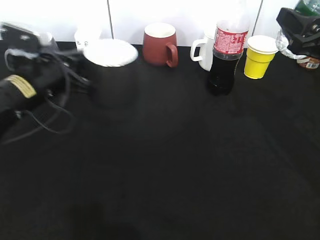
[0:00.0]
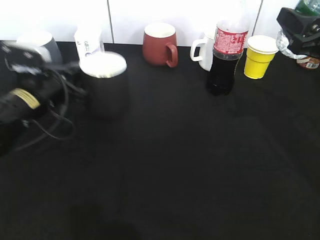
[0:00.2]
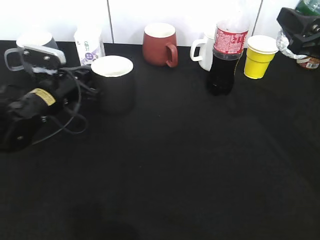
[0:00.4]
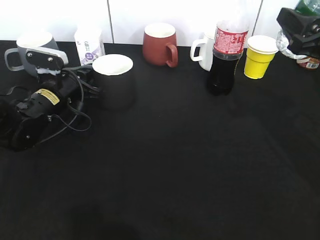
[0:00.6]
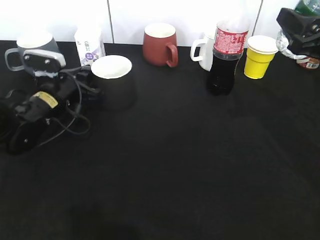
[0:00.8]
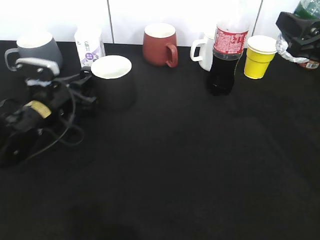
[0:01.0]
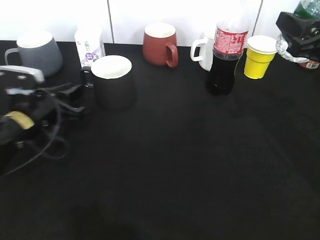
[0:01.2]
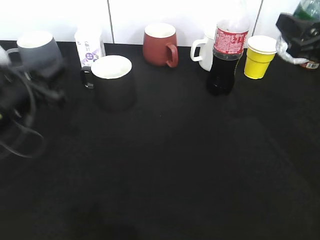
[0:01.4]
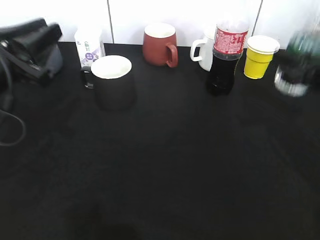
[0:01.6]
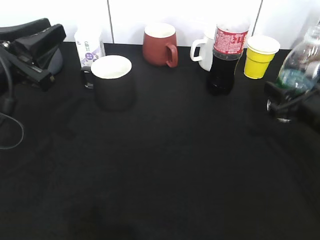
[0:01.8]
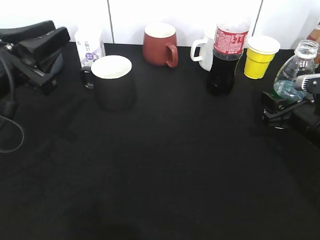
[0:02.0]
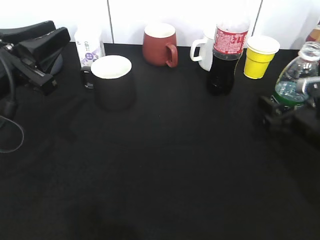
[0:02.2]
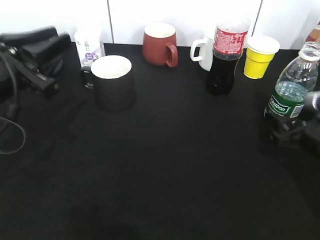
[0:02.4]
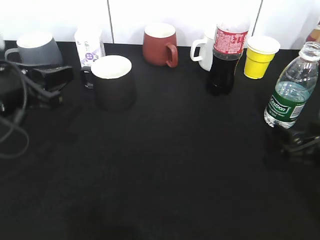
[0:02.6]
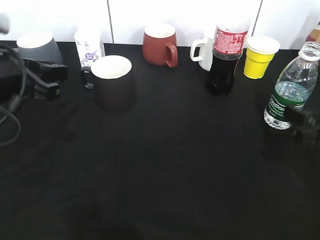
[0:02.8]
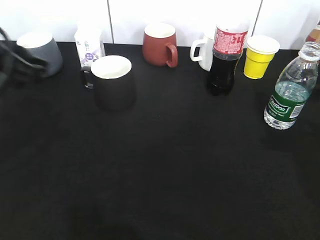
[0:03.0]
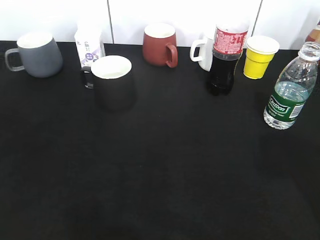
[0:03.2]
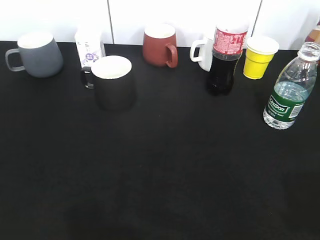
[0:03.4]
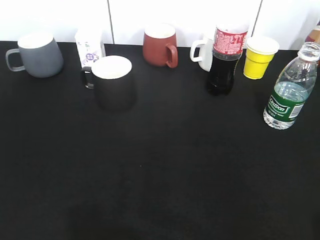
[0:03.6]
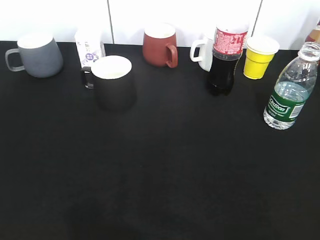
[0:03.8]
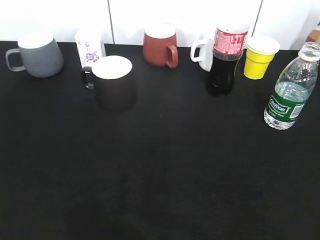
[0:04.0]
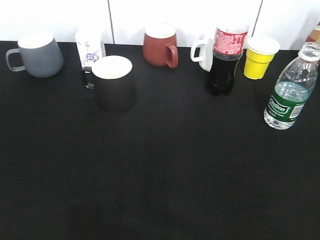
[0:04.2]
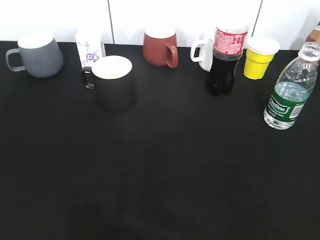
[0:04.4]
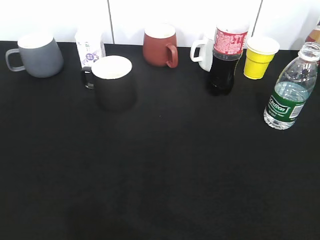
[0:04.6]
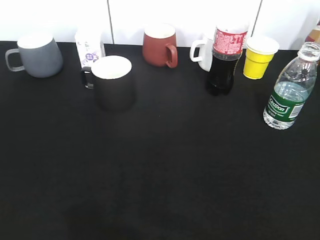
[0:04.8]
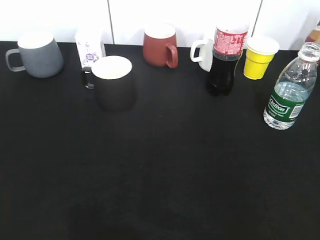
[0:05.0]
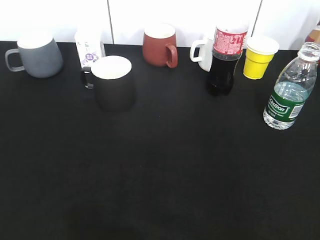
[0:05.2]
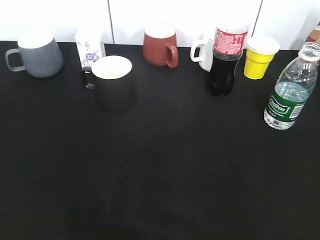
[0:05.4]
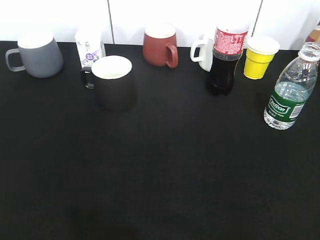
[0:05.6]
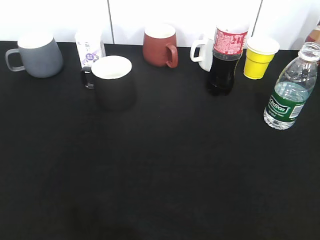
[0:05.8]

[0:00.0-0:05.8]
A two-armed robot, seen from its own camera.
Step, 0:00.0 to 0:01.0: Place the black cup on the table with left gripper.
Step, 0:01.2 to 0:02.4: Place the water bottle on the table with right gripper.
0:00.0 to 0:01.4: The left gripper opens up.
0:01.4 to 0:02.8: The left gripper heads upward, covering roughly 5 cm. The right gripper moves downward and backward, roughly 10 cm, and opens.
0:02.8 to 0:04.4: The left gripper moves backward and to the left, roughly 25 cm, while the right gripper shifts approximately 25 cm backward and upward, and closes its fingers.

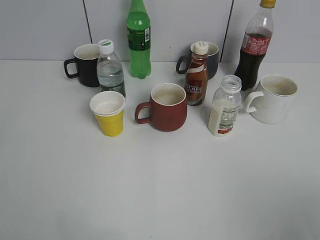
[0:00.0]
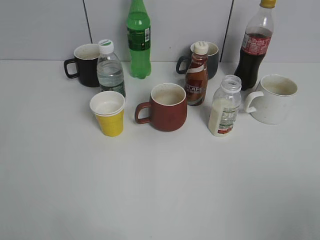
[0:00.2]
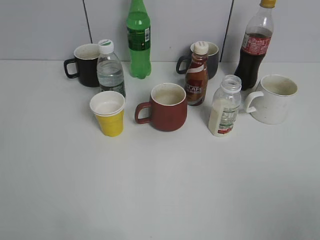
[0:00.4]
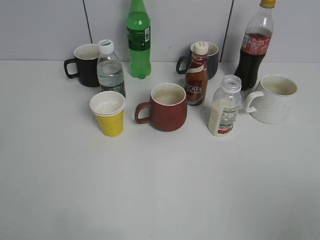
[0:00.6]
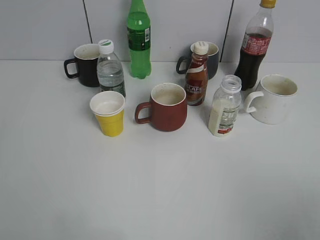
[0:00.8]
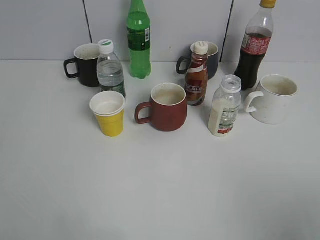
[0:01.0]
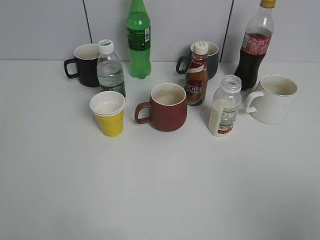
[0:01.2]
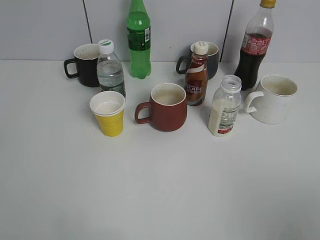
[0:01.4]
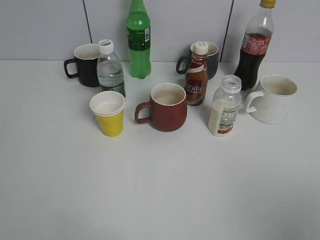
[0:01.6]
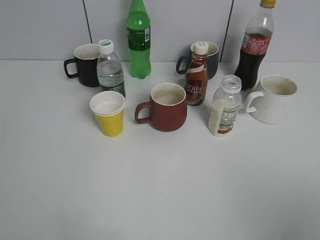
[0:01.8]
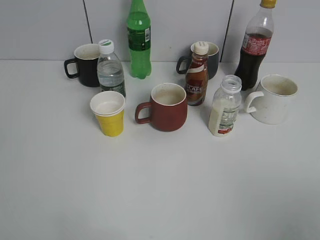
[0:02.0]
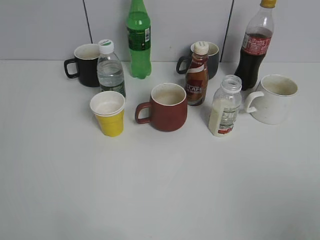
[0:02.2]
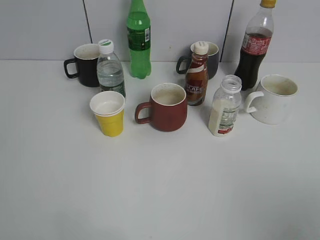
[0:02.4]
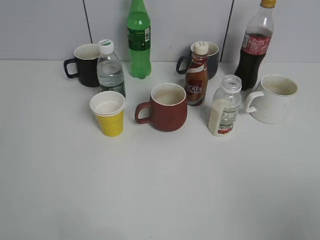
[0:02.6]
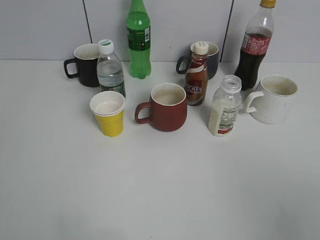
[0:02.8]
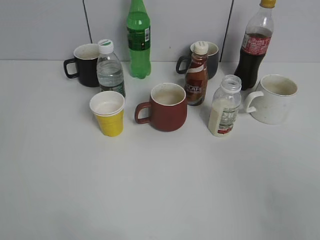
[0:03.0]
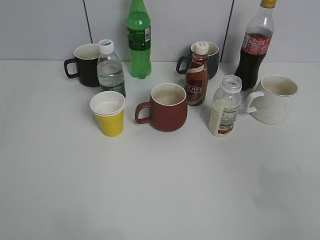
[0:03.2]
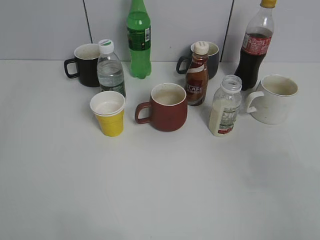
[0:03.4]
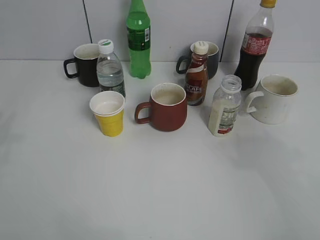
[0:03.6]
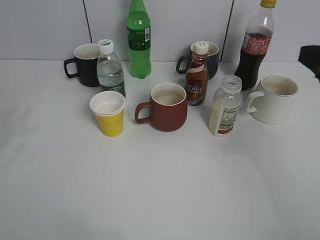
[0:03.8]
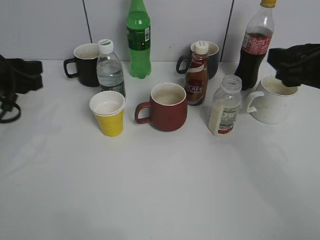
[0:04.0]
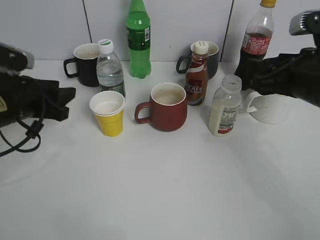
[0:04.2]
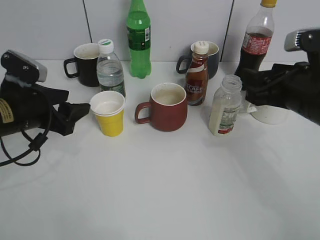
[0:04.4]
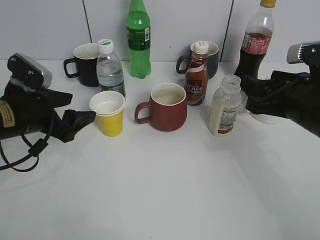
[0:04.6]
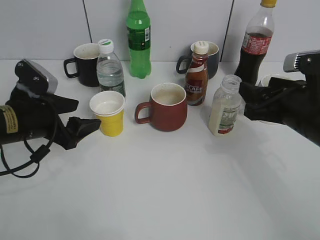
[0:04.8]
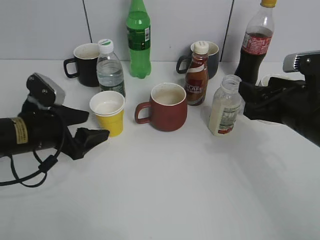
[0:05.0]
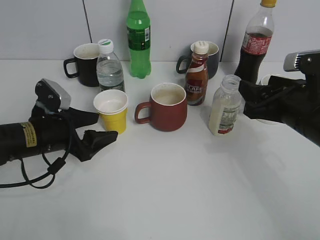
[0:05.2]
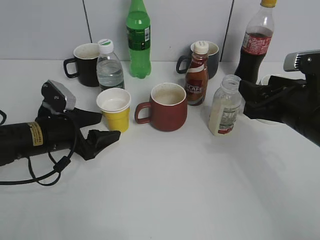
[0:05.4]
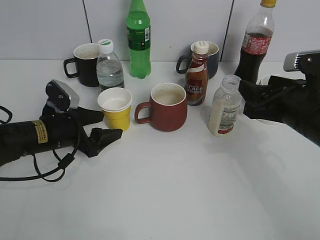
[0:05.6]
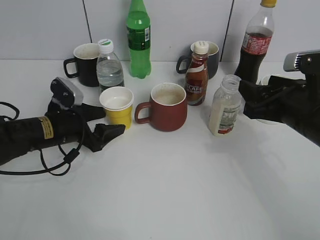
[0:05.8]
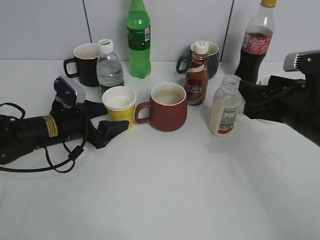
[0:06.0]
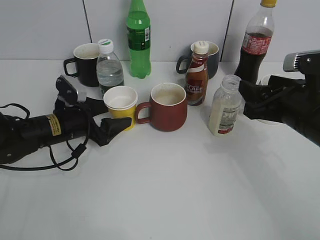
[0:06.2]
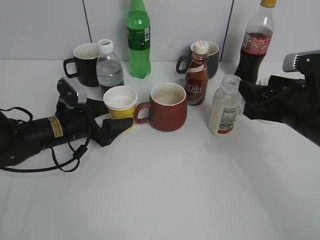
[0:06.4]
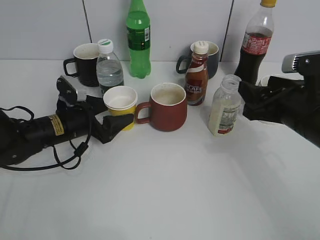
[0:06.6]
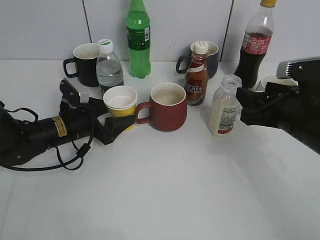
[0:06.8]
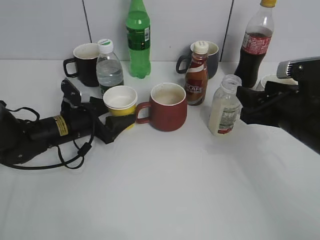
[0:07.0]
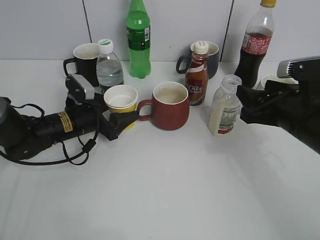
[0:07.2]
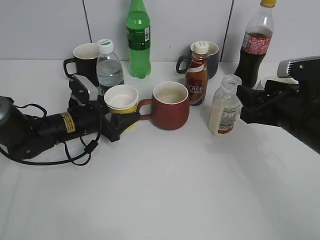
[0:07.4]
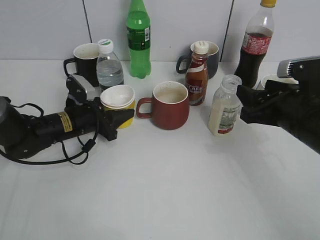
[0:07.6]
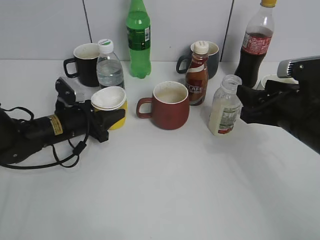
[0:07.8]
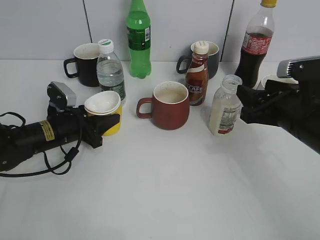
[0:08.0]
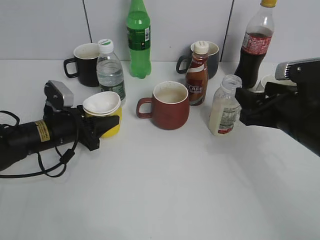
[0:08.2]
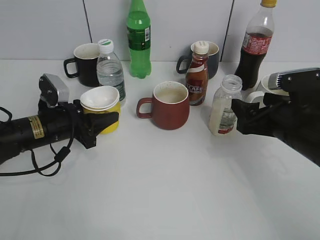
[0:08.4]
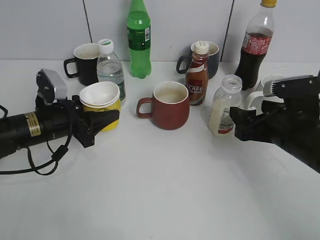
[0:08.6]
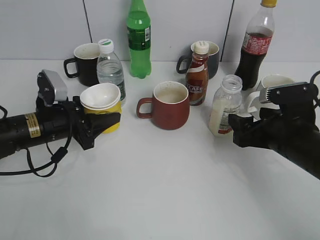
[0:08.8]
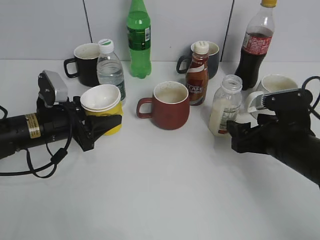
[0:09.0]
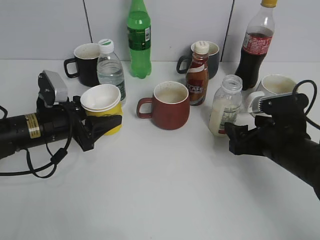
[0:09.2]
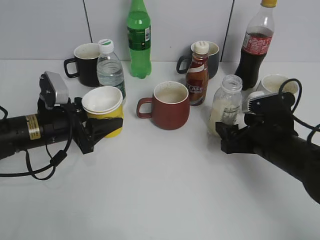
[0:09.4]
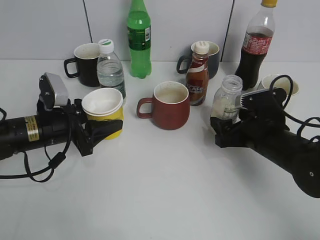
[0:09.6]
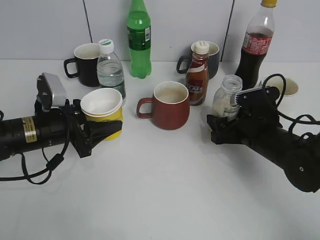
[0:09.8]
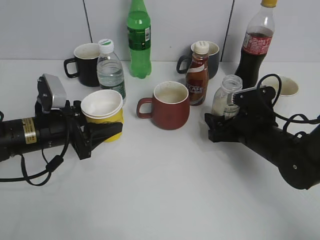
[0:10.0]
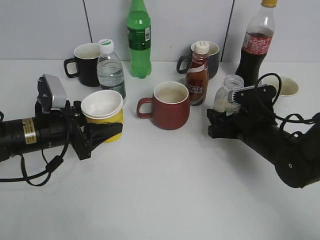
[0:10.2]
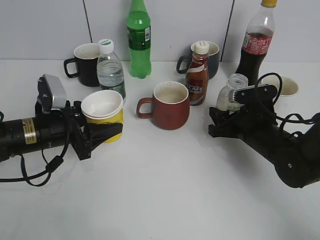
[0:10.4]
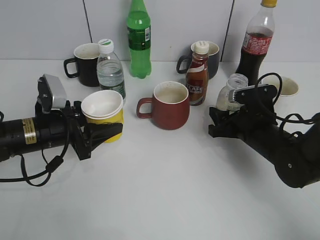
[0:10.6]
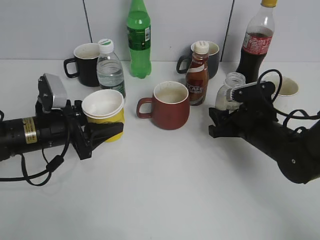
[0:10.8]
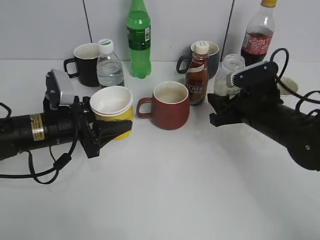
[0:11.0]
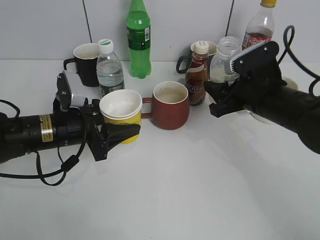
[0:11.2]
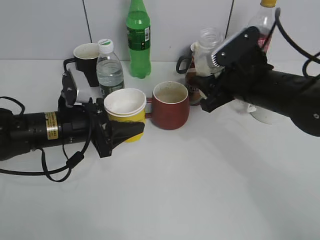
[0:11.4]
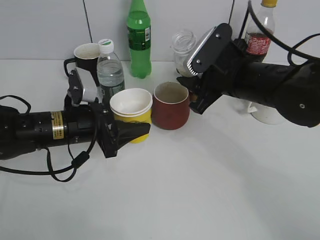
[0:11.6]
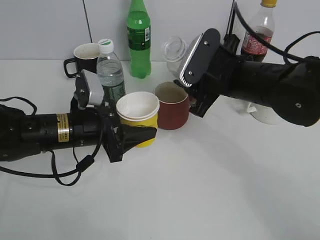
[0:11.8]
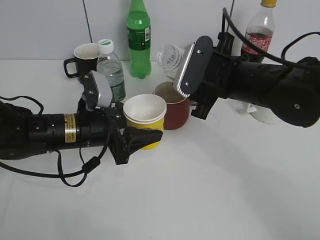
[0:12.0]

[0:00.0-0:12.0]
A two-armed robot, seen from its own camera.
Step, 0:03.8 to 0:07.4: Grasp the yellow paper cup with left gripper.
Step, 0:07.8 to 0:08.6: Lift the yellow paper cup with left gripper.
Step, 0:09.0 to 0:10.4: Grasp the bottle with yuexian Milk with right gripper.
0:03.0 to 0:04.4: Both grippers travel together forward and downward, approximately 30 cm. The left gripper opens up.
0:04.4 to 0:06.0: The left gripper goes approximately 10 cm downward, and opens up.
0:06.0 to 0:07.6: The left gripper closes.
0:07.6 to 0:09.0: The right gripper travels downward by some 5 cm, and opens. Meanwhile the left gripper is displaced backward by roughly 5 cm.
0:09.0 to 0:10.4: The right gripper heads forward, covering roughly 5 cm, and closes its fingers.
0:10.4 to 0:12.0: The right gripper heads upward and to the left, covering some 15 cm; the left gripper moves to the right, about 5 cm.

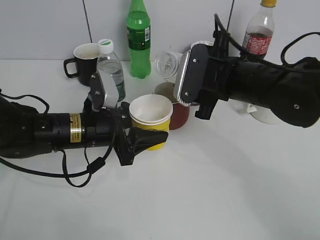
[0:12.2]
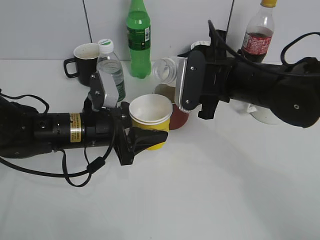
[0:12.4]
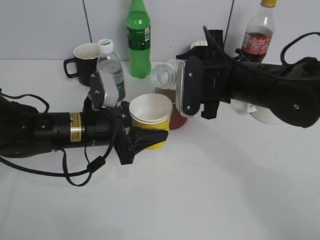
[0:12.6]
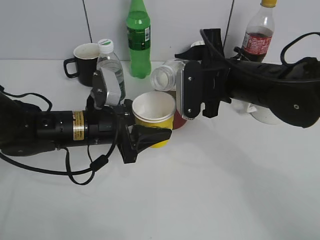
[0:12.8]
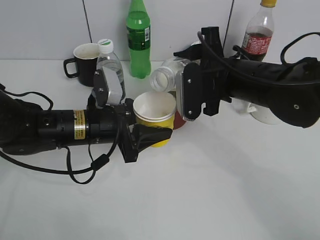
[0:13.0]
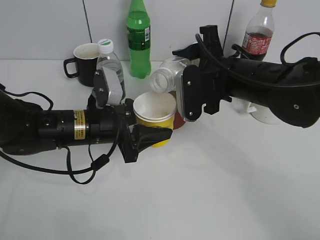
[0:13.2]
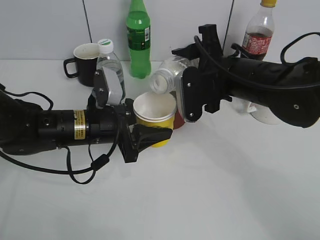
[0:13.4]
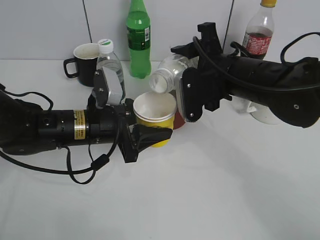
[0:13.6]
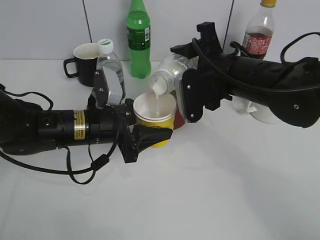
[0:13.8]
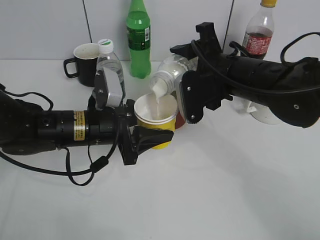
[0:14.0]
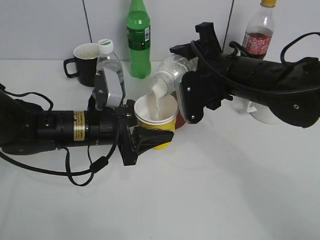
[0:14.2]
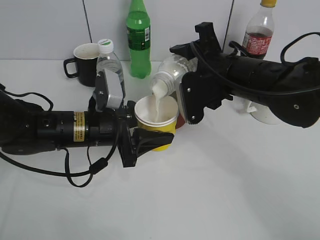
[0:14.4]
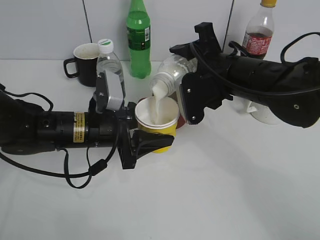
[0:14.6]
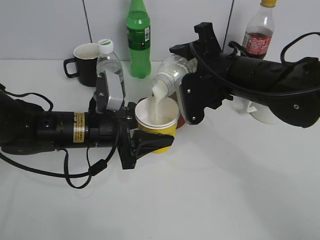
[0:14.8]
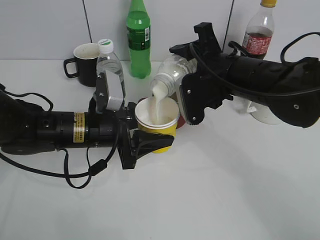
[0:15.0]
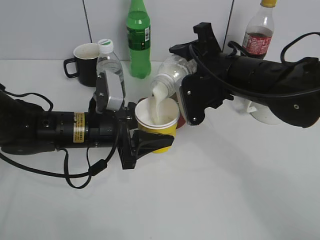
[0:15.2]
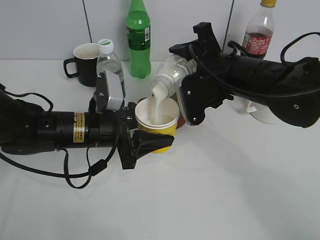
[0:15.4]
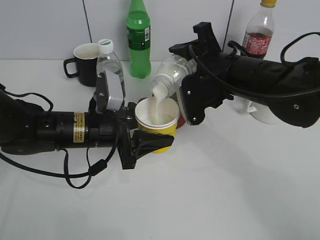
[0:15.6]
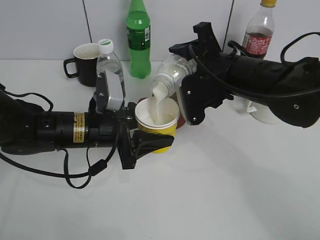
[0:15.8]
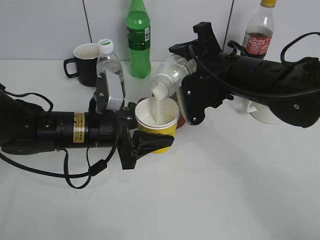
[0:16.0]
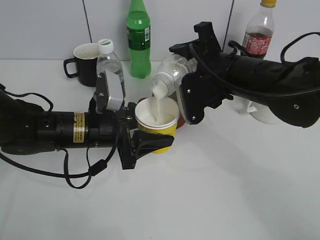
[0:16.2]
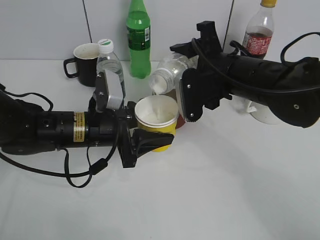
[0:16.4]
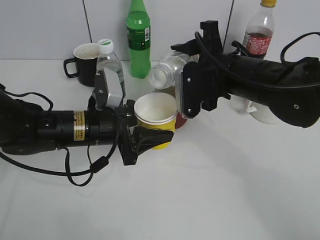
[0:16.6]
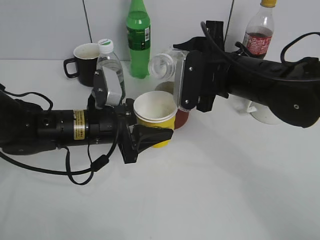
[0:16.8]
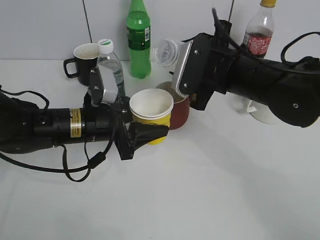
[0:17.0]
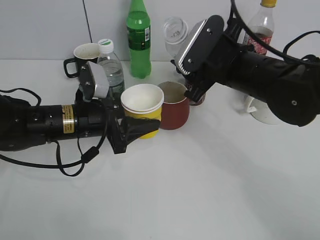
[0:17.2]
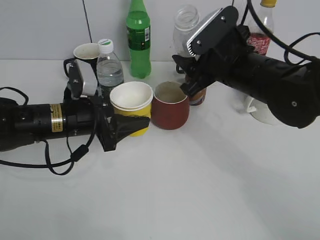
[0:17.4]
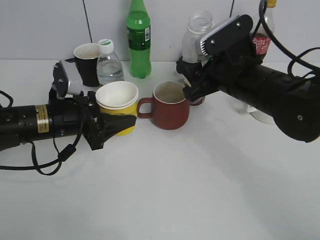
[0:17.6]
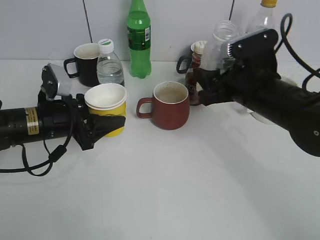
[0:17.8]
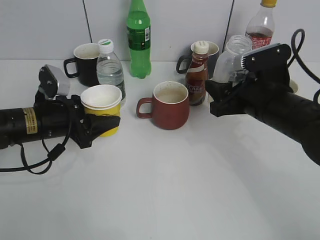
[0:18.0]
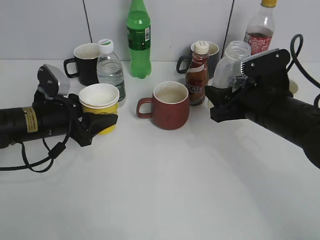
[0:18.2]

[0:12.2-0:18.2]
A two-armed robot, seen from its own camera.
Step, 0:12.2 to 0:16.8: Pour the yuexian Milk from bottle to cup with right gripper.
0:13.8 to 0:16.6: There are only small adjustments of the grippers.
0:16.6 to 0:18.2: The left gripper travels to the left by some 10 cm. Meanwhile the right gripper is displaced to the right by roughly 5 cm.
